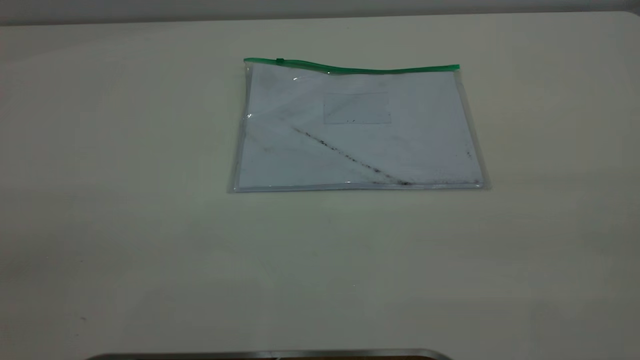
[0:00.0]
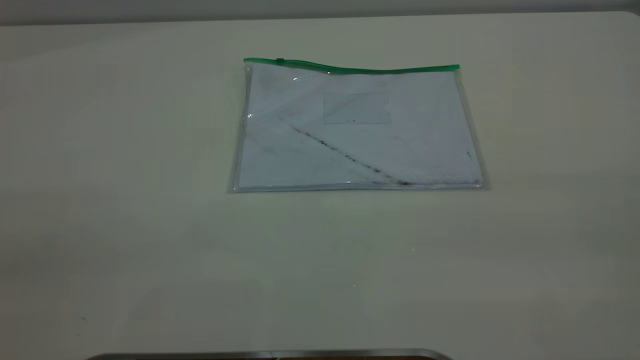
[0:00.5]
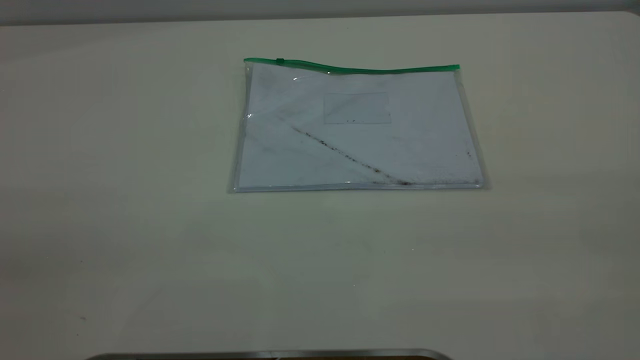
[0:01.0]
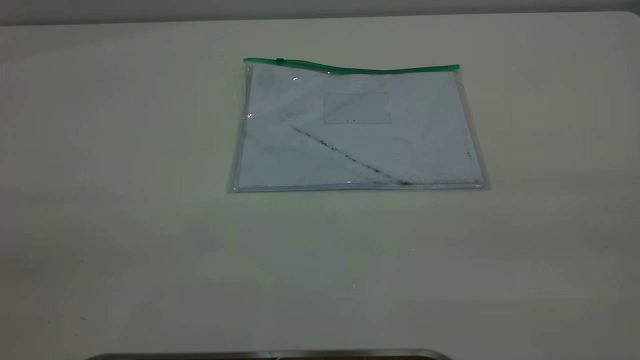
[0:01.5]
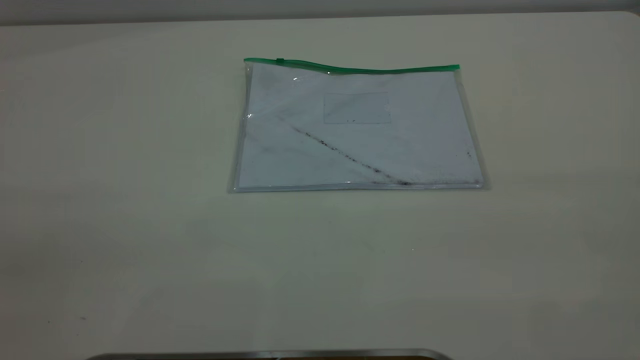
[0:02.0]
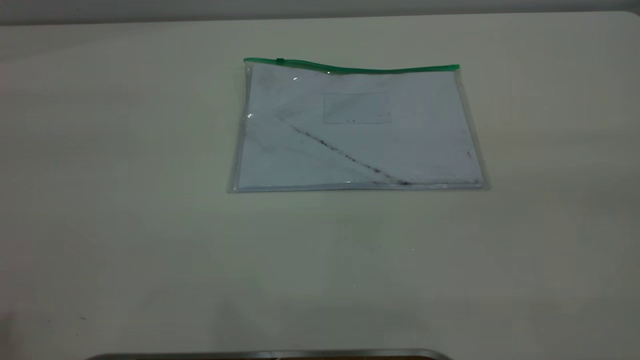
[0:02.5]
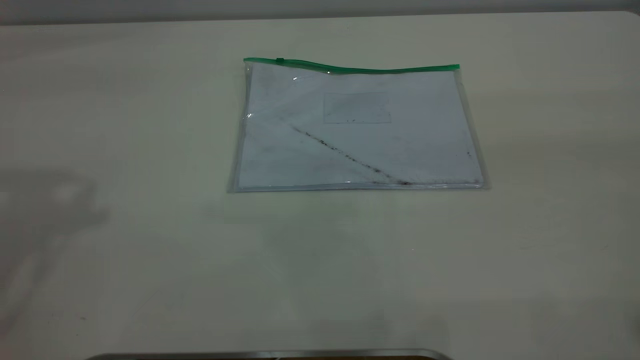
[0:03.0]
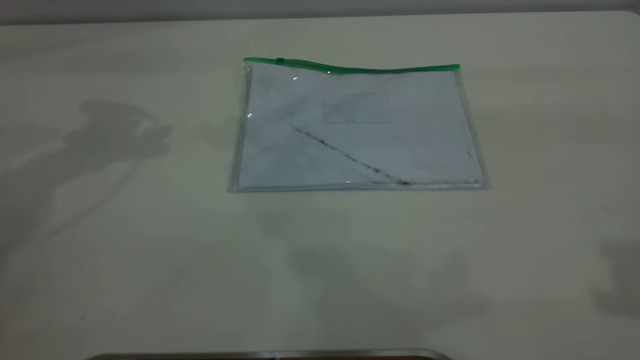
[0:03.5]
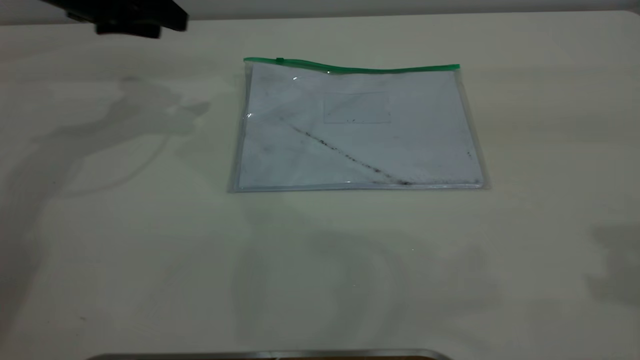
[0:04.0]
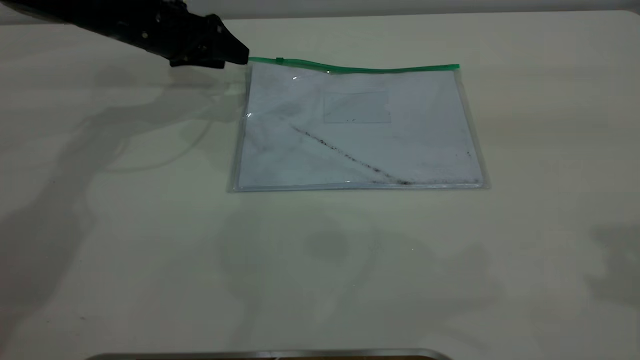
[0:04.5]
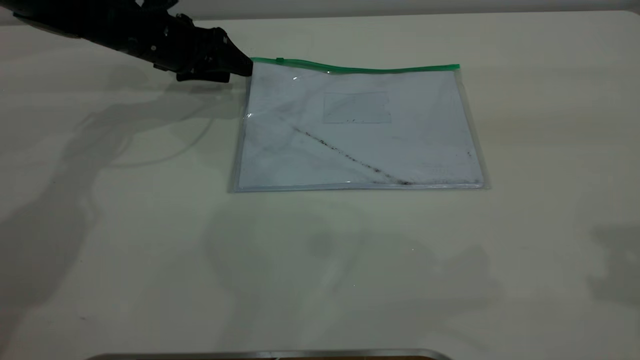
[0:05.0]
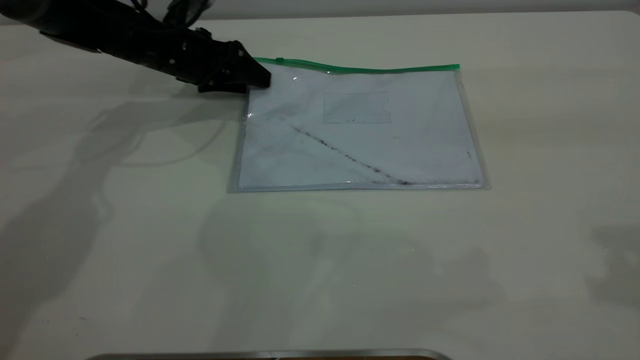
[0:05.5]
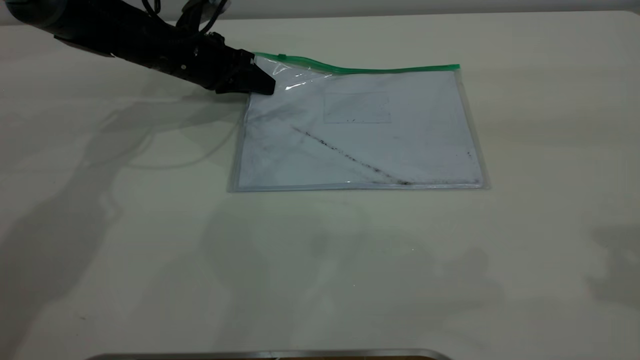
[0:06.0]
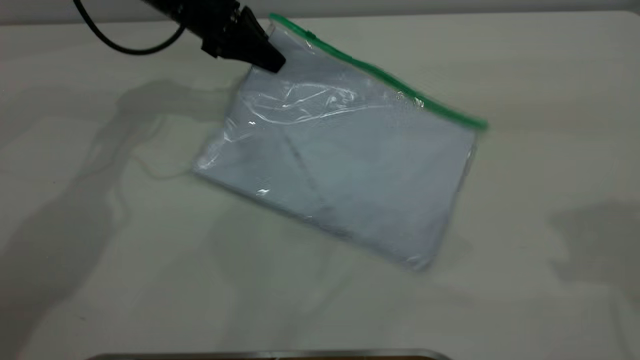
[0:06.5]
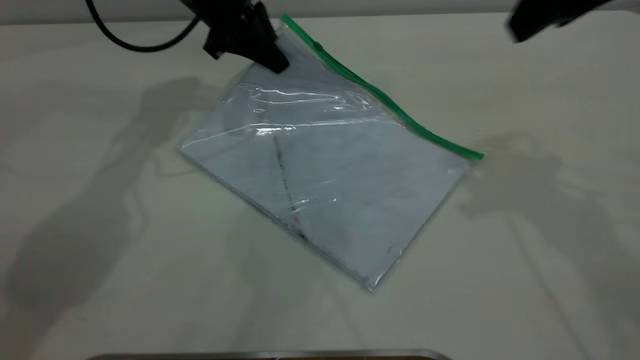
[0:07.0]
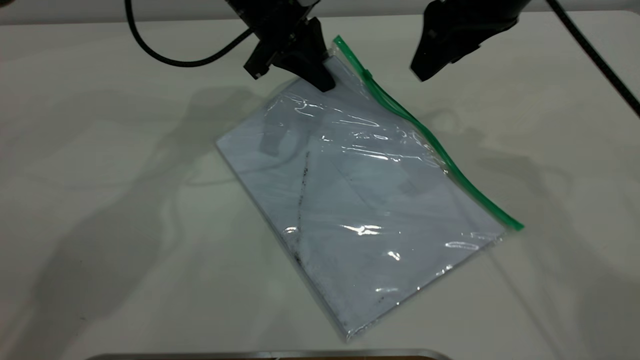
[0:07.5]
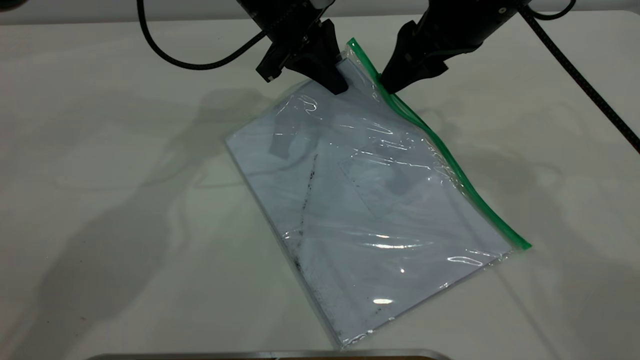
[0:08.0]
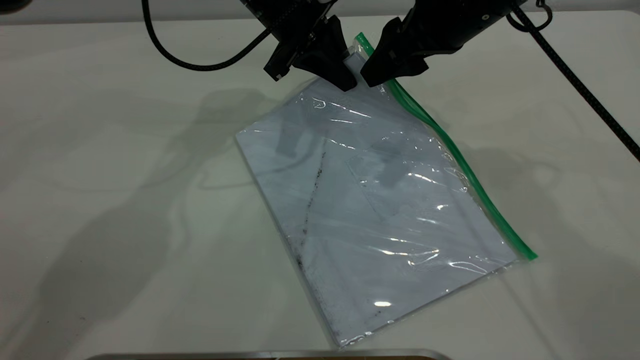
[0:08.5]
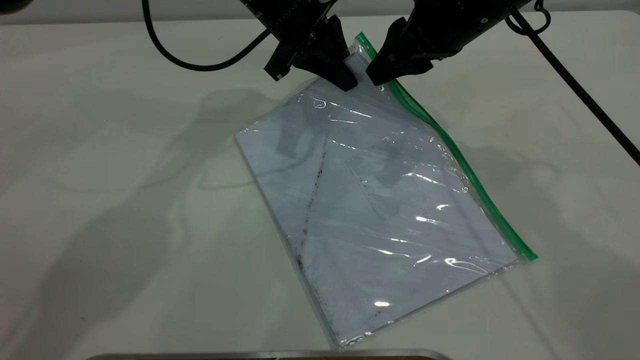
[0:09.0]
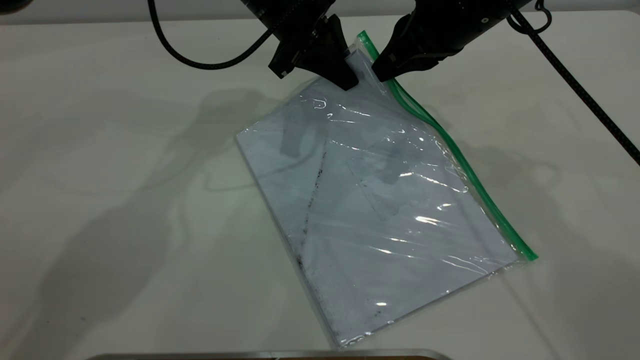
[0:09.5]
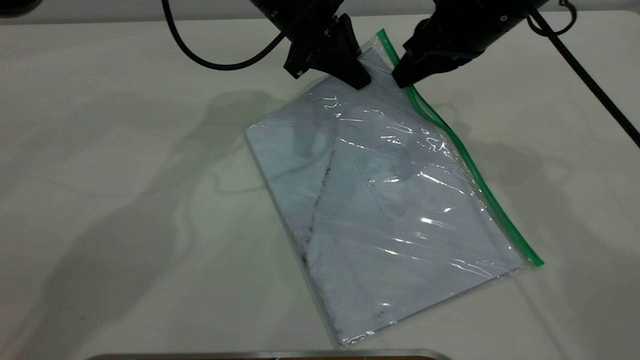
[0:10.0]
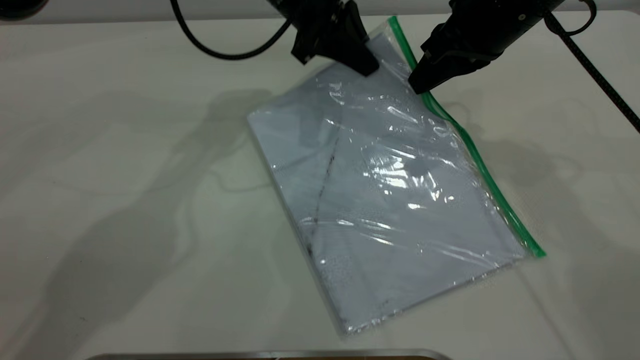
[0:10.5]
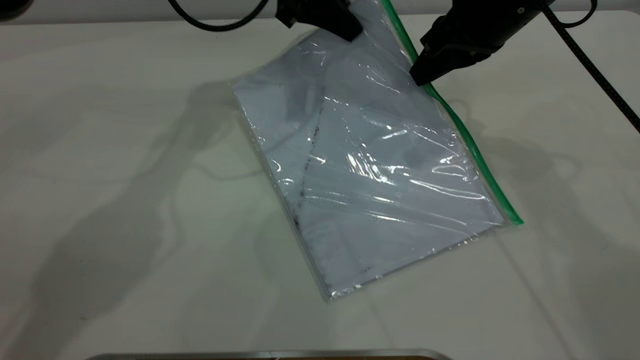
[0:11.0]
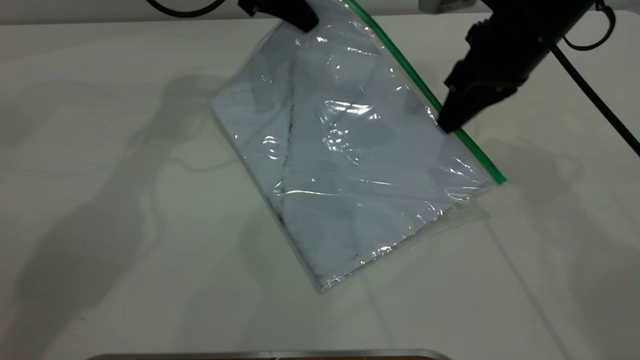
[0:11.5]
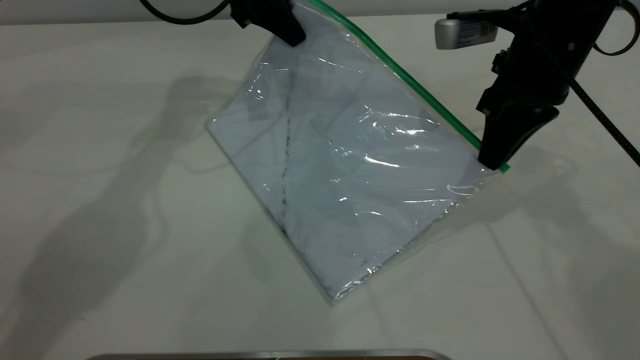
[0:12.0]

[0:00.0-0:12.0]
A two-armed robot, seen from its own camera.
Step, 0:00.0 to 0:06.0: Pick up the transparent plastic bag with the left gripper.
0:00.0 to 0:02.0: Both grippers stay about where they are.
0:02.0 to 0:04.0: The left gripper travels forward and downward by roughly 50 cm.
0:04.0 to 0:06.0: The left gripper is displaced downward and to the right by approximately 15 cm, and closes.
0:06.0 to 0:08.0: The right gripper is displaced forward, to the left and downward by approximately 30 cm; the left gripper is displaced to the right and upward by approximately 15 cm.
0:08.0 to 0:10.0: The right gripper closes.
0:10.0 to 0:12.0: The right gripper moves roughly 5 cm. Meanwhile the left gripper travels to the left by some 5 cm.

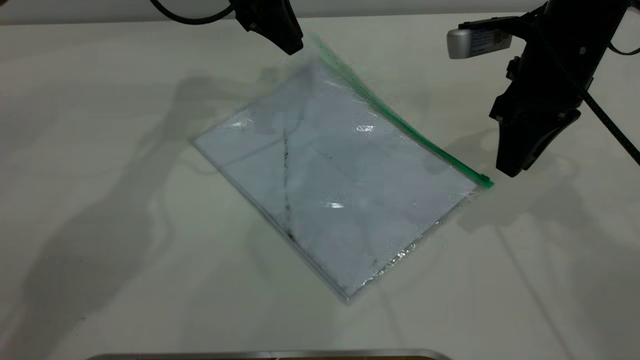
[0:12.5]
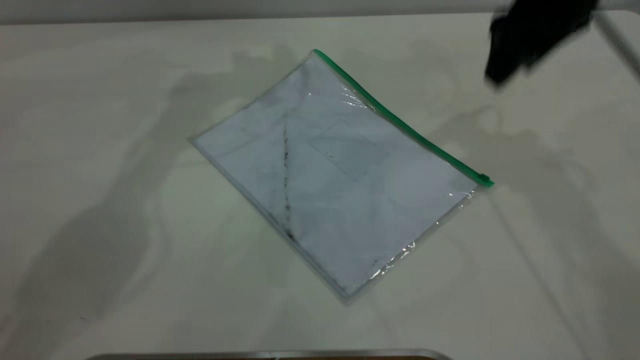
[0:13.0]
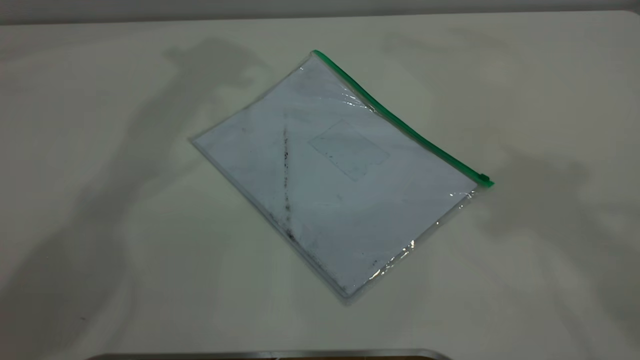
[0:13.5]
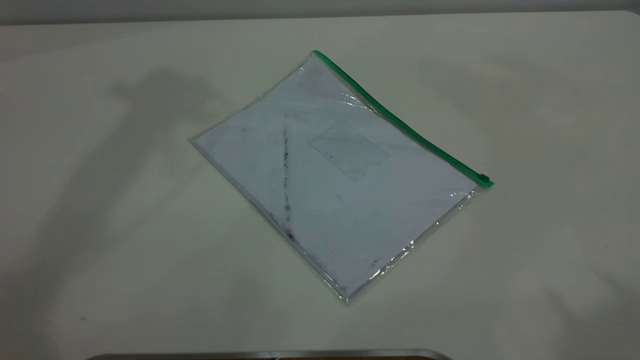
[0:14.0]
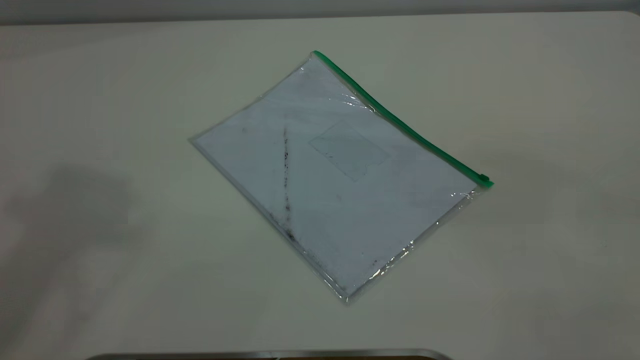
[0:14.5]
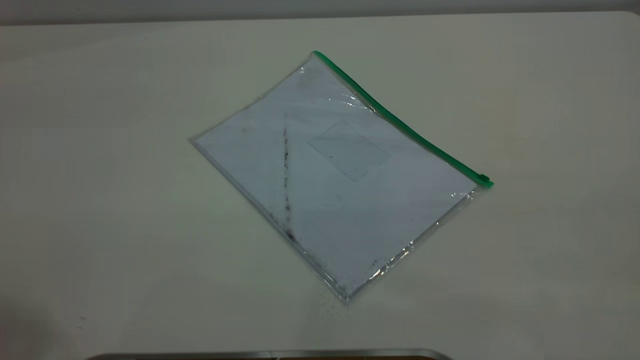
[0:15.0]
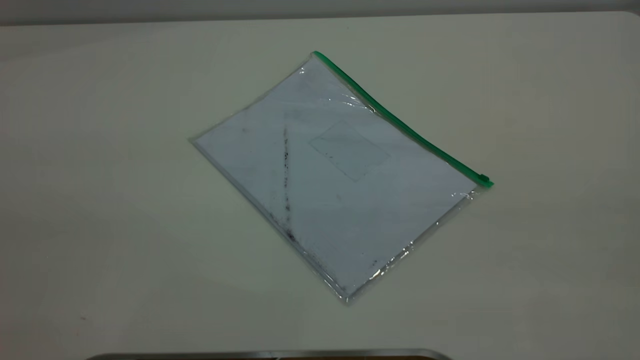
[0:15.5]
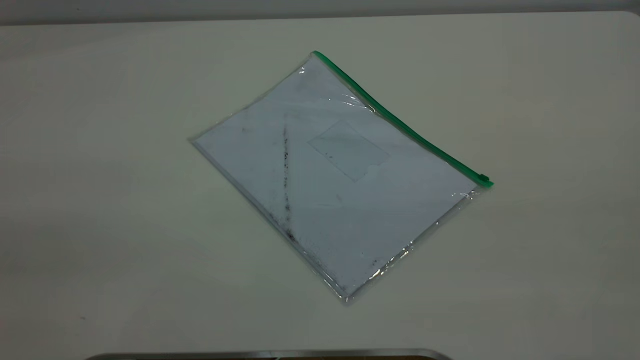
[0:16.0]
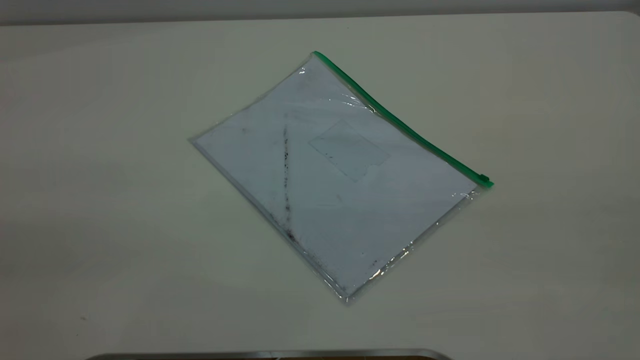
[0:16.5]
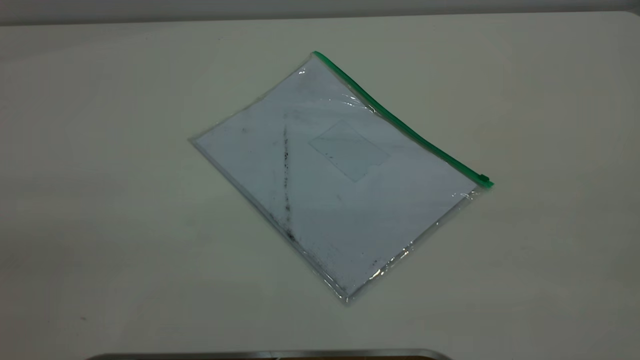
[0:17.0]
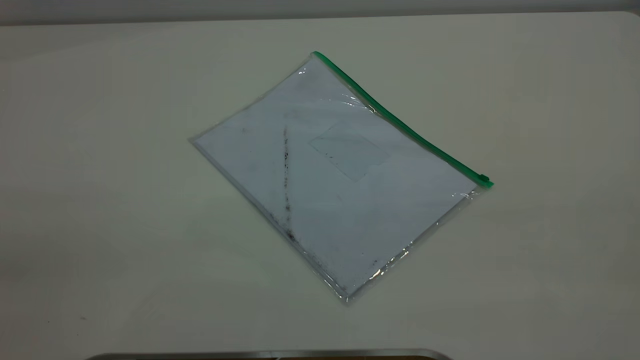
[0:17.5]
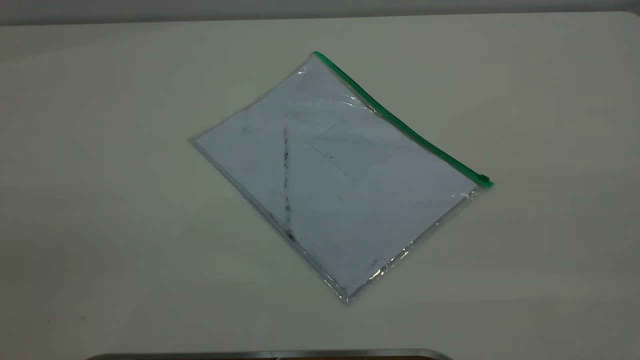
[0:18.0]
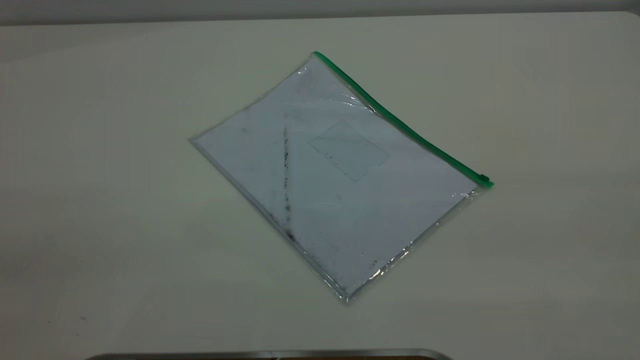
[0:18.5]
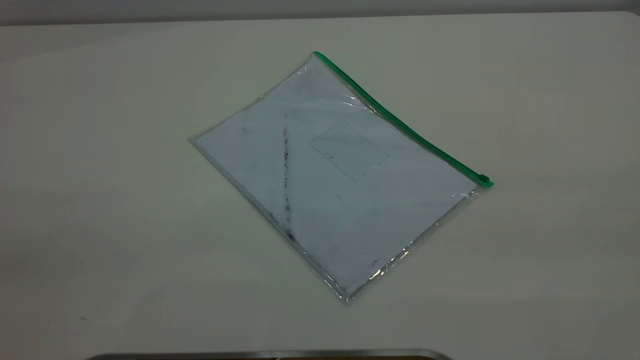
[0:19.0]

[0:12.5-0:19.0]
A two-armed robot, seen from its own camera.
0:12.5 to 0:14.5: The left gripper heads upward and backward, covering some 50 cm, and opens. Meanwhile the right gripper is displaced backward and upward by about 40 cm, and opens.
